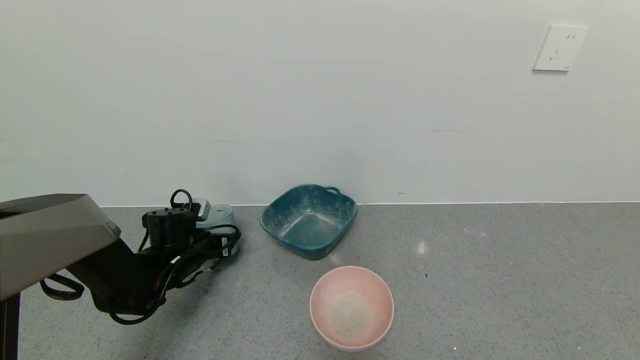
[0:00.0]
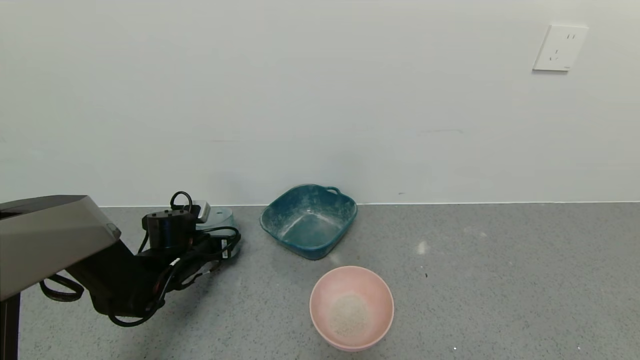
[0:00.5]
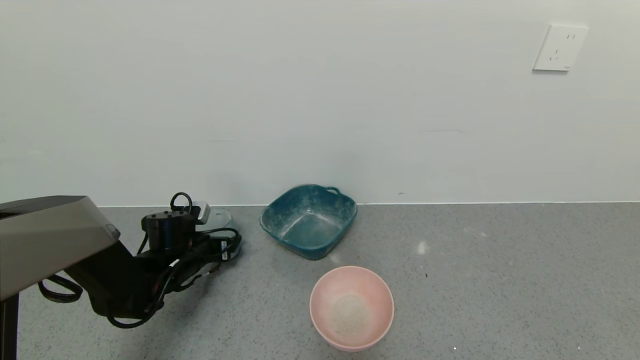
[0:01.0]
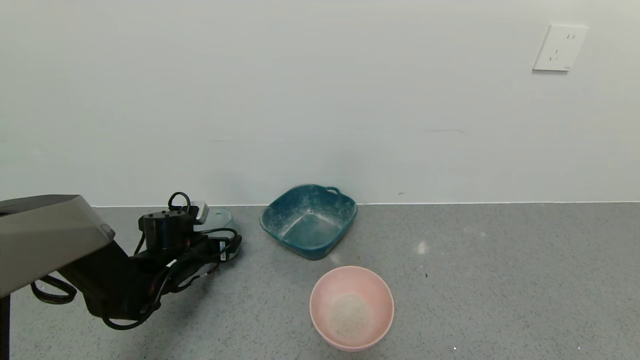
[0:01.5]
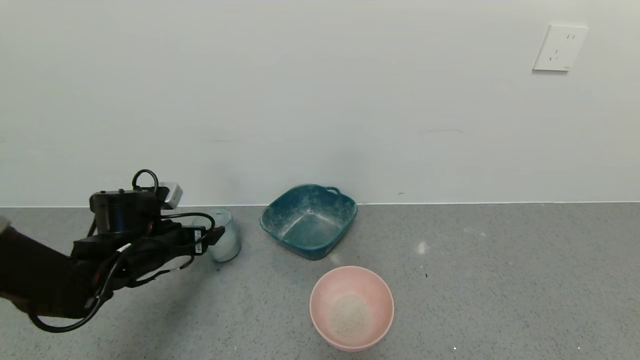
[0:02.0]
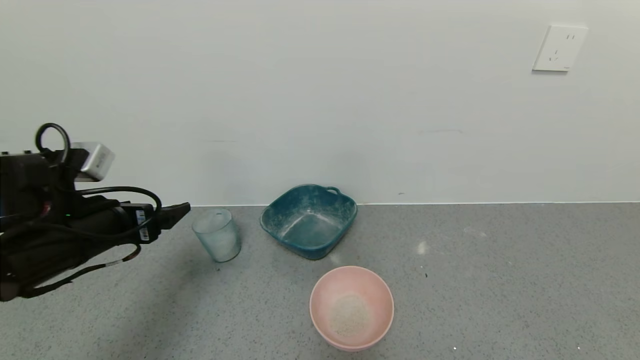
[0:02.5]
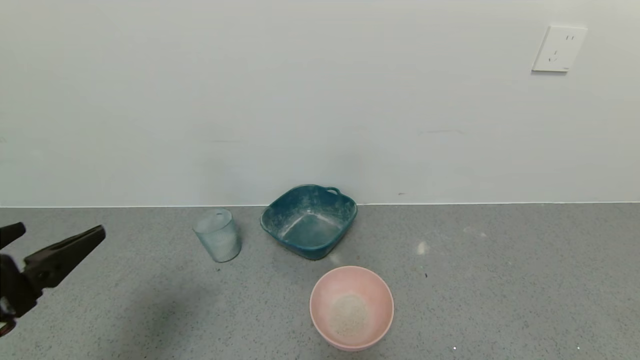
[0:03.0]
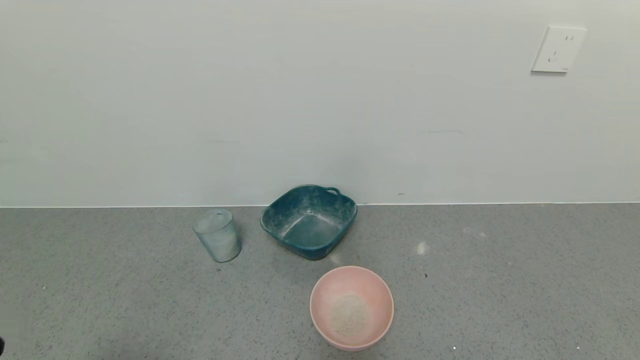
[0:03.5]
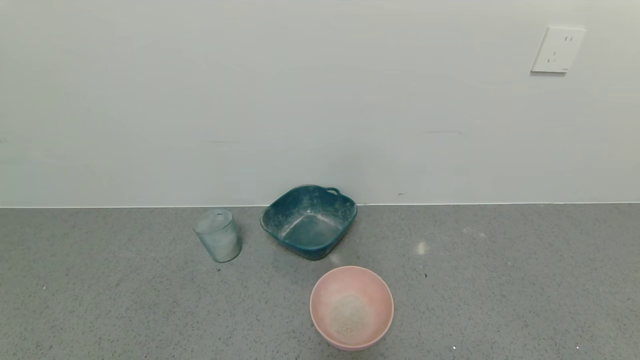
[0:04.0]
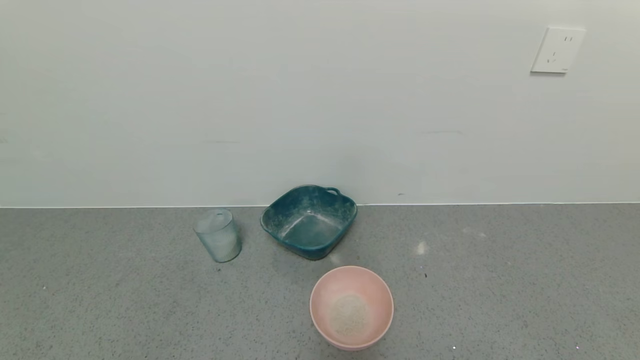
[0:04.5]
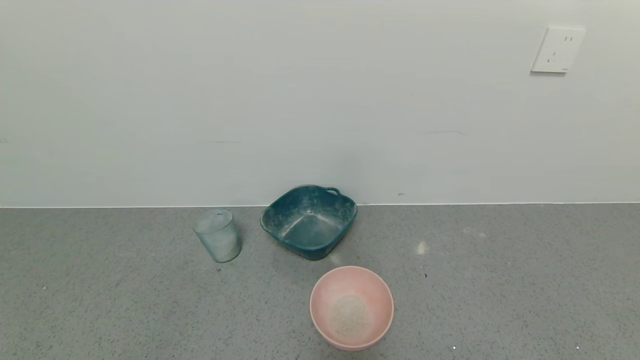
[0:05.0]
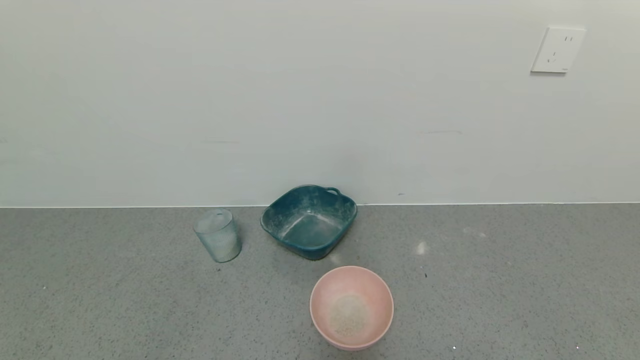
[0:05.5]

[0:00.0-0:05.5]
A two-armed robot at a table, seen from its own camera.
Task of the whole recording: use a gripper to pick up the cup and pour the powder into a bowl or tray.
0:00.0 to 0:02.0: The left gripper is displaced upward and backward by approximately 10 cm, and opens.
0:02.0 to 0:03.5: The left gripper shifts approximately 30 cm backward.
